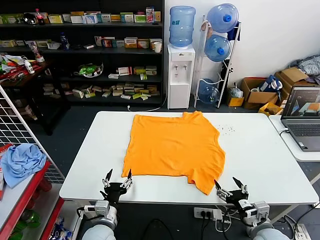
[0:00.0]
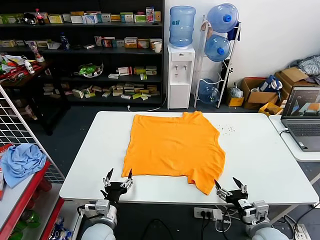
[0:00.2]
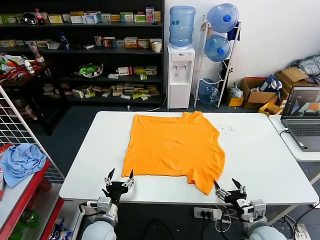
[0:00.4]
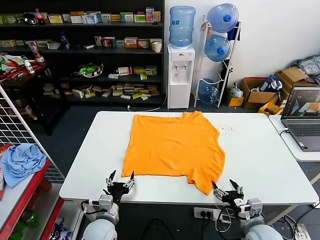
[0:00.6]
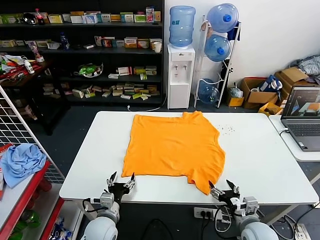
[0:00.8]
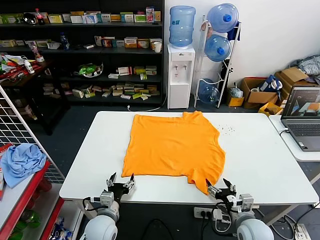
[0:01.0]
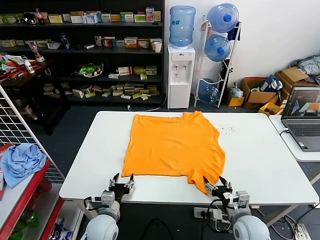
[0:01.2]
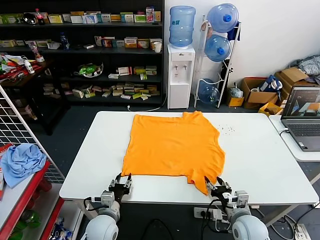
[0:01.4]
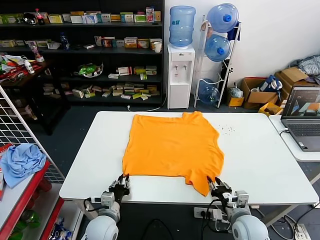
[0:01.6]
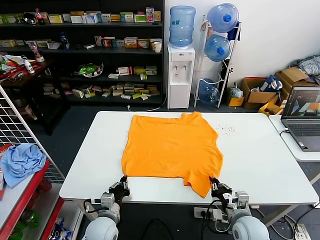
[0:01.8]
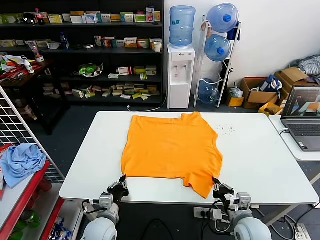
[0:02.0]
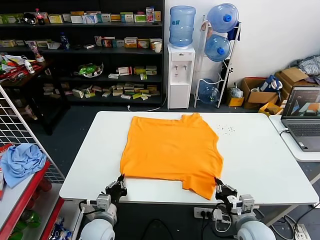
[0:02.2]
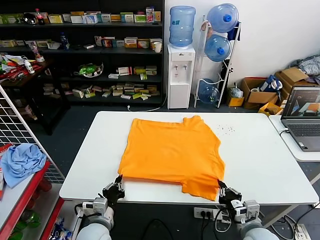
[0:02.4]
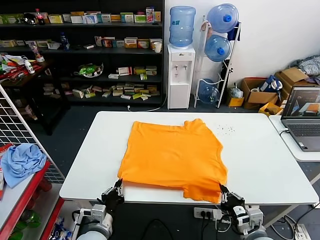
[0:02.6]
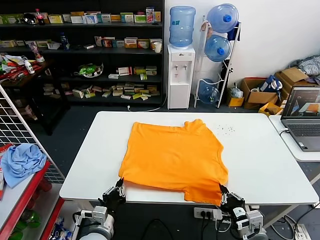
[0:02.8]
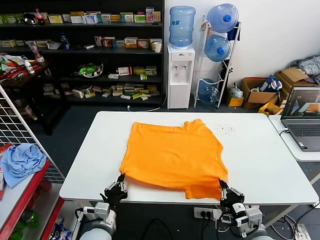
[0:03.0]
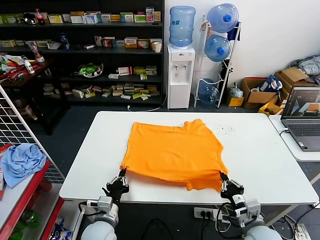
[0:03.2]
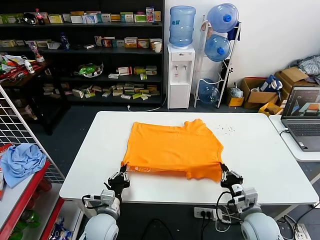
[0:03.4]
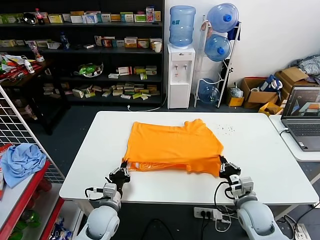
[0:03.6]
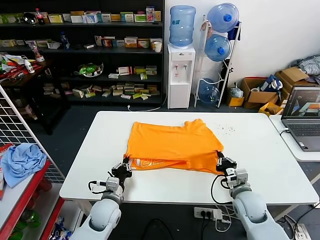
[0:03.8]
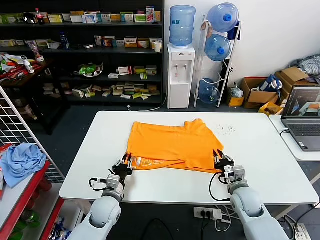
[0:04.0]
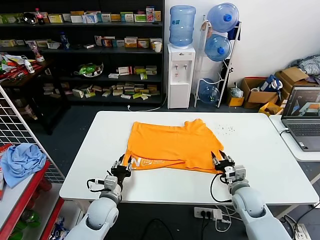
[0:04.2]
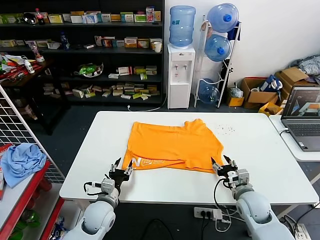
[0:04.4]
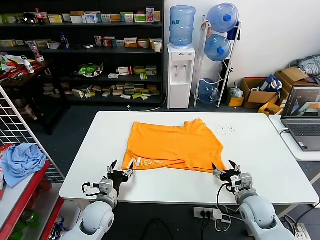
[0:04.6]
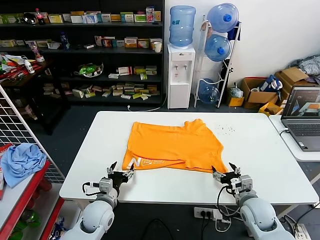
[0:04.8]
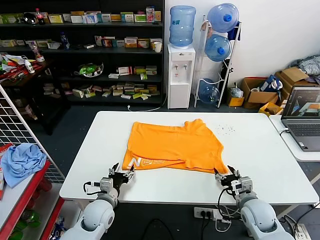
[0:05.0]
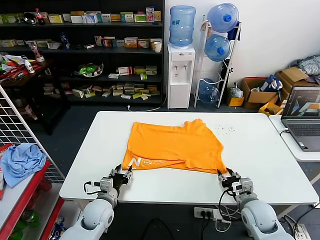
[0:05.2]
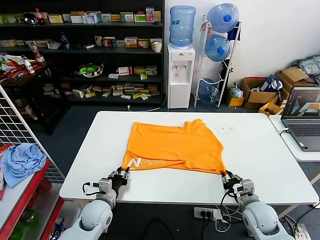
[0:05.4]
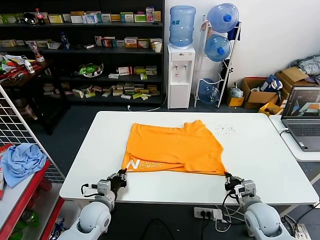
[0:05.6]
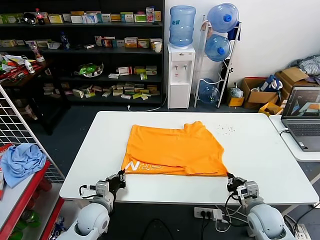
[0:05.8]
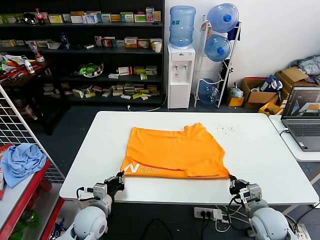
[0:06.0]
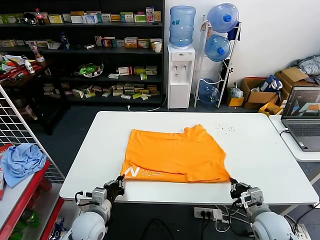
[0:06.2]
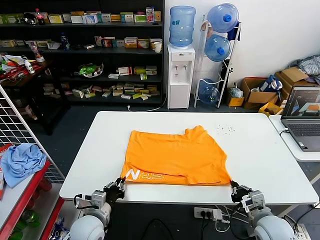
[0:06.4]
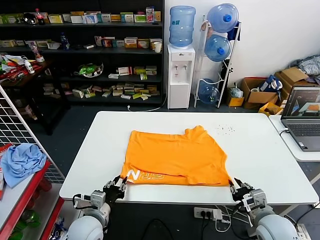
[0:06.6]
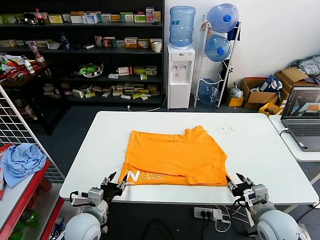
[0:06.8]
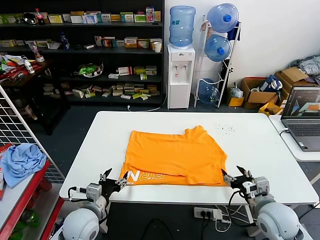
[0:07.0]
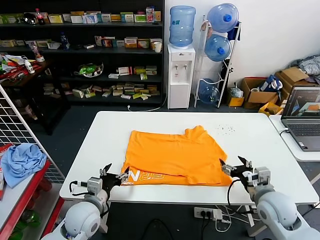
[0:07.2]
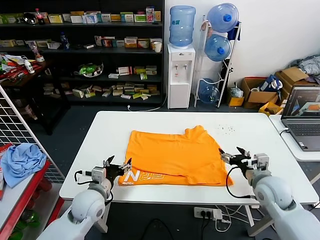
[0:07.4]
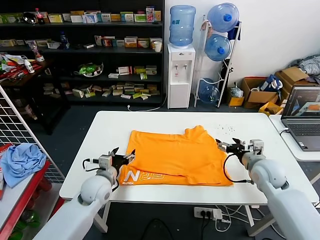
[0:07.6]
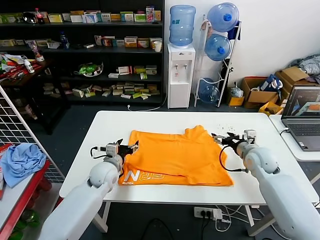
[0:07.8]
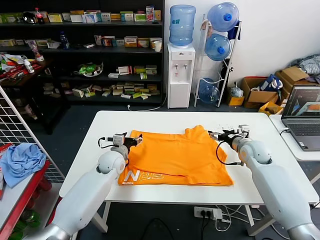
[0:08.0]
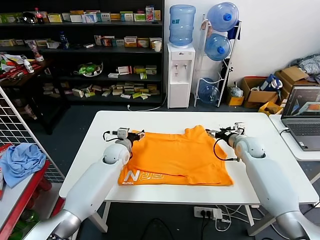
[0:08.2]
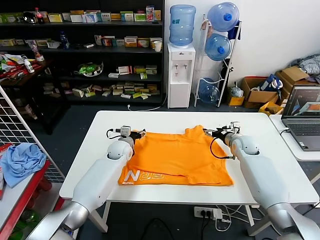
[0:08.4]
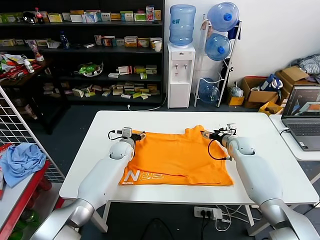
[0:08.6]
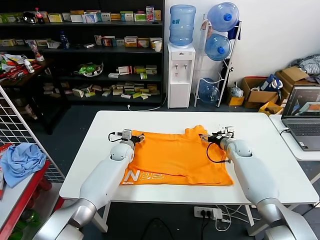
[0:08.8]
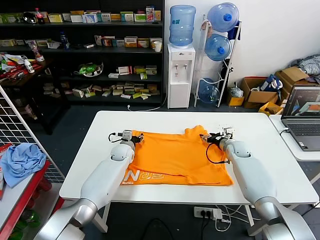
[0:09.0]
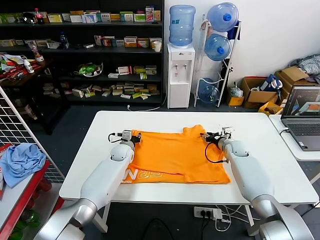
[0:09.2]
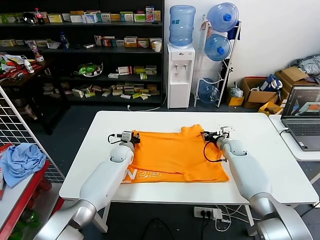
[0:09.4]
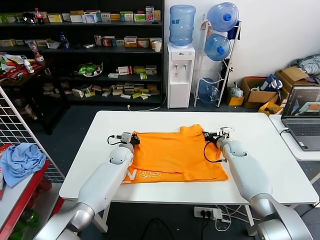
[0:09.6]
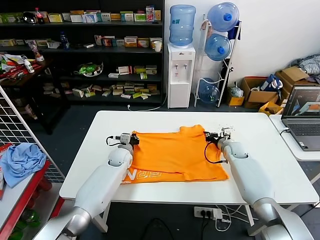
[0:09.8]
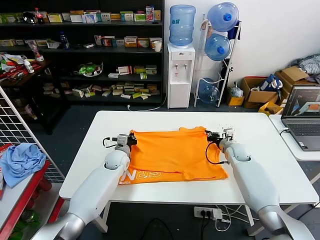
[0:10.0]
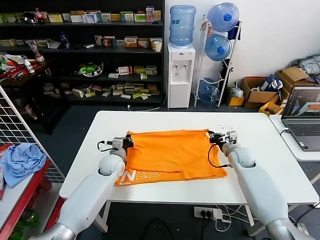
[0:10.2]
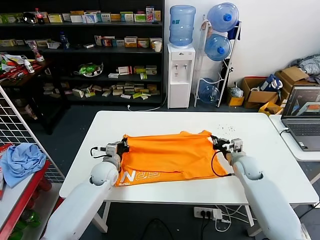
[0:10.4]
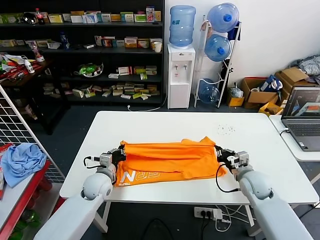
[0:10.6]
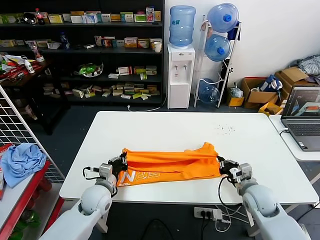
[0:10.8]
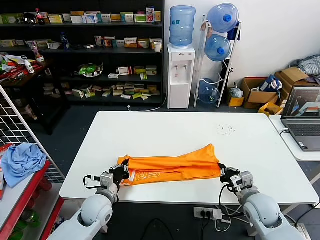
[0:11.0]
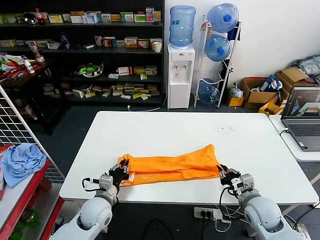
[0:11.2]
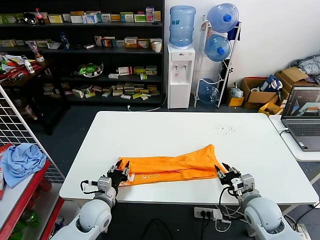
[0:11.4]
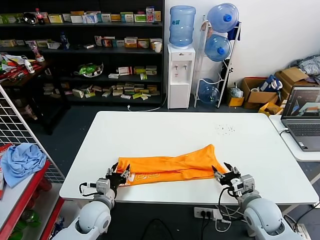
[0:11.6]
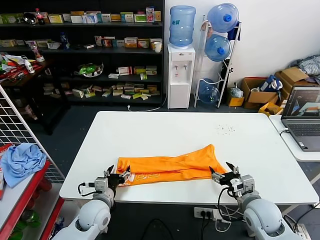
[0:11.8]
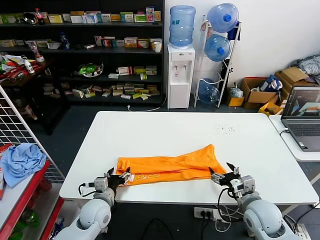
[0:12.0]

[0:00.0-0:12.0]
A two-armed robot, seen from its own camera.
Task of the whole recording: fold and organize the clothes.
Step, 0:00.0 to 0:02.0: use both grippers simultaneously to clamp the lower edge of the clothing fabric.
Step, 0:02.2 to 0:04.2: use both grippers to drag the lower edge of the fabric forward and fold it over the upper edge.
Step, 0:04.4 to 0:06.6: Drag the clothes downward with both gripper.
Step, 0:06.8 to 0:09.4: use both grippers simultaneously to clamp the upper edge of the clothing fabric.
Step, 0:09.8 to 0:11.4: use both grippers to drag the upper edge of the fabric backward and fold it over the lower edge.
0:01.6 to 0:03.0: The left gripper changes place by some 5 cm. Meanwhile the right gripper shifts approximately 5 cm backward.
0:03.0 to 0:04.4: Both grippers move forward, roughly 10 cm. The right gripper opens its fingers. Meanwhile the left gripper opens up.
0:04.4 to 0:06.0: The left gripper closes its fingers. The right gripper is displaced backward by about 5 cm, and closes its fingers.
0:06.0 to 0:07.6: The right gripper goes roughly 15 cm forward and upward, and opens its fingers. Meanwhile the left gripper travels forward and upward by about 10 cm, and opens up.
0:07.6 to 0:09.0: The left gripper moves forward, approximately 20 cm, while the right gripper goes about 20 cm forward and downward.
0:09.0 to 0:10.4: Both grippers travel together backward, roughly 10 cm. The right gripper closes its fingers; the left gripper closes its fingers.
0:10.4 to 0:12.0: Both grippers move backward, approximately 15 cm. The right gripper opens up; the left gripper opens its fingers.

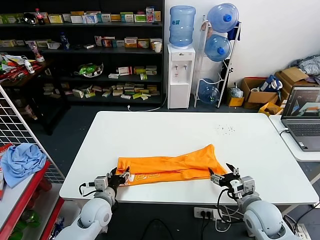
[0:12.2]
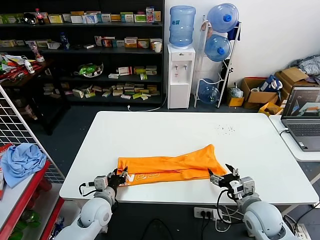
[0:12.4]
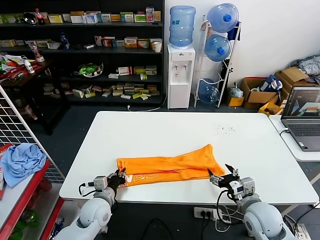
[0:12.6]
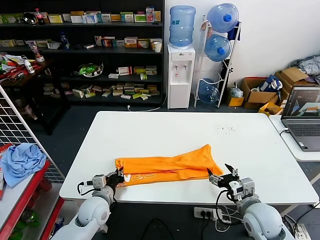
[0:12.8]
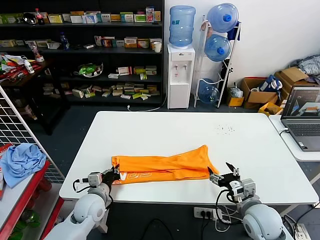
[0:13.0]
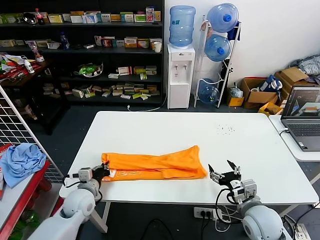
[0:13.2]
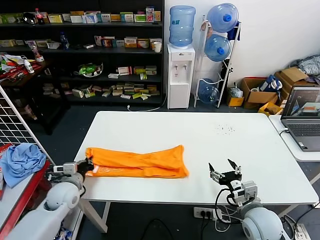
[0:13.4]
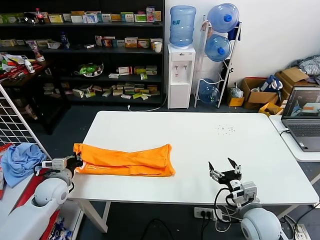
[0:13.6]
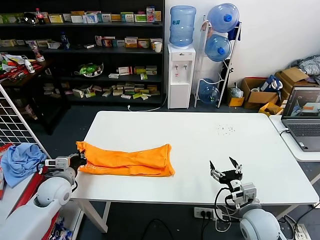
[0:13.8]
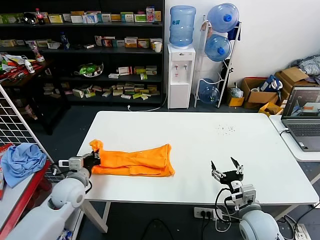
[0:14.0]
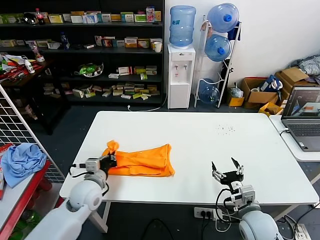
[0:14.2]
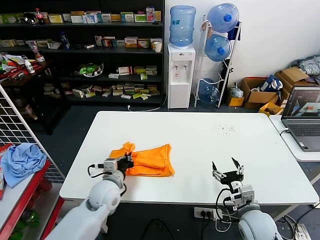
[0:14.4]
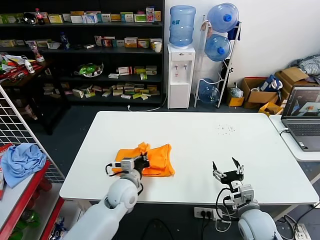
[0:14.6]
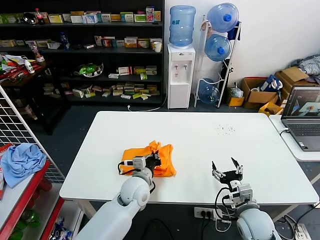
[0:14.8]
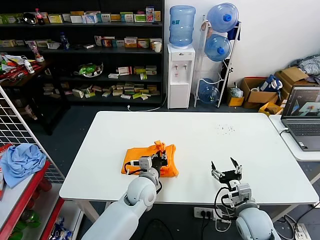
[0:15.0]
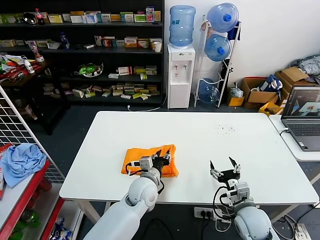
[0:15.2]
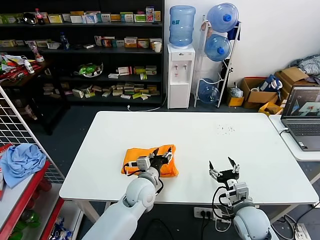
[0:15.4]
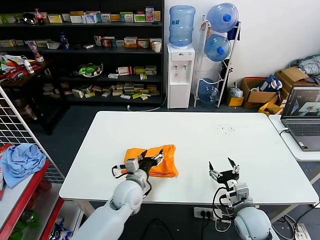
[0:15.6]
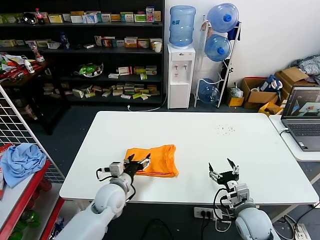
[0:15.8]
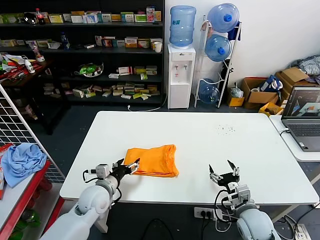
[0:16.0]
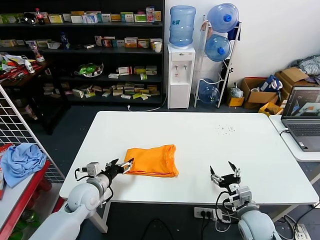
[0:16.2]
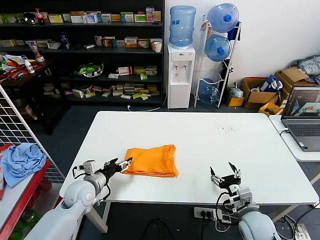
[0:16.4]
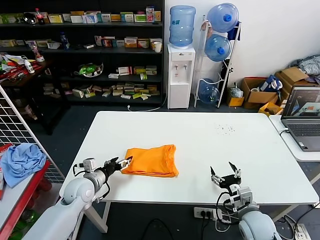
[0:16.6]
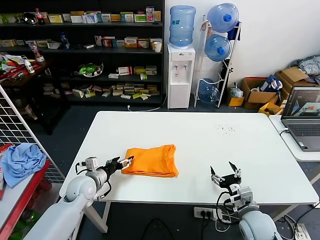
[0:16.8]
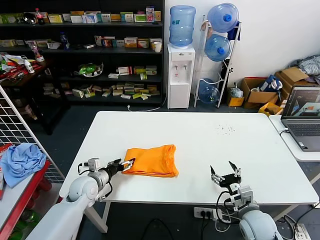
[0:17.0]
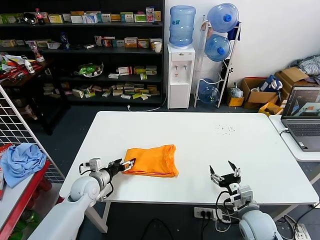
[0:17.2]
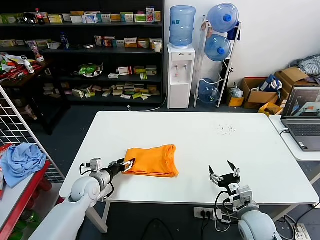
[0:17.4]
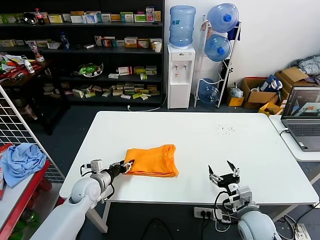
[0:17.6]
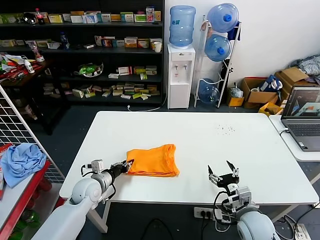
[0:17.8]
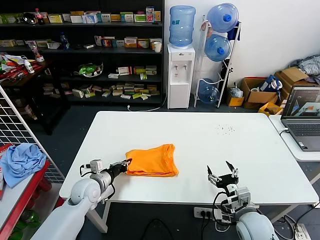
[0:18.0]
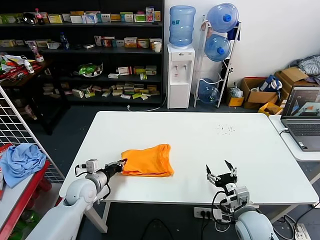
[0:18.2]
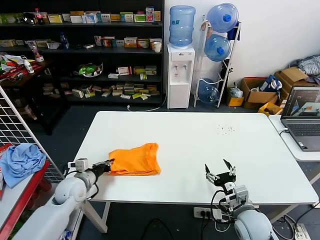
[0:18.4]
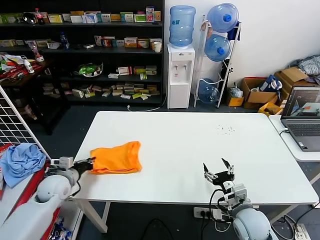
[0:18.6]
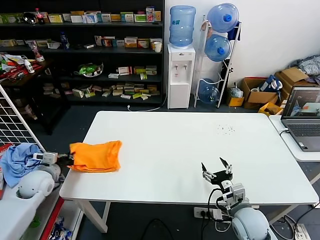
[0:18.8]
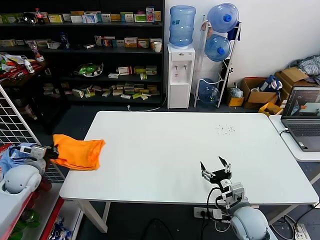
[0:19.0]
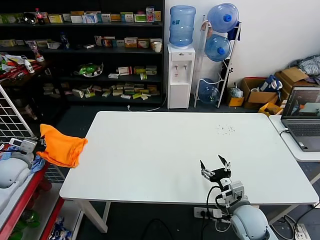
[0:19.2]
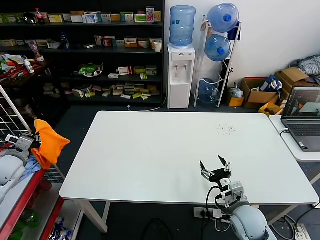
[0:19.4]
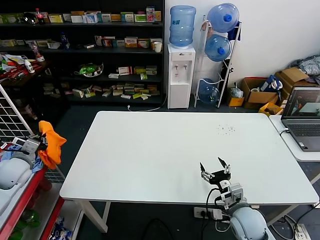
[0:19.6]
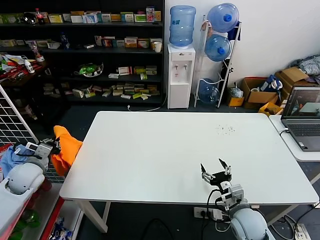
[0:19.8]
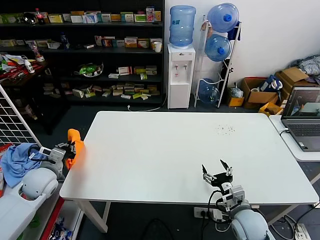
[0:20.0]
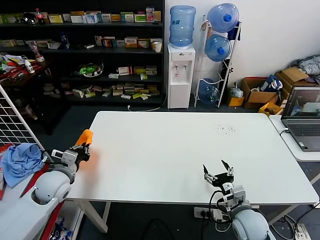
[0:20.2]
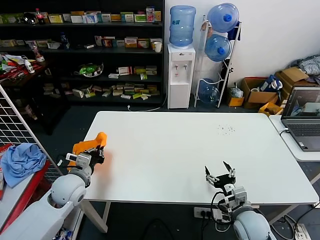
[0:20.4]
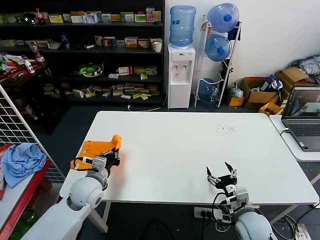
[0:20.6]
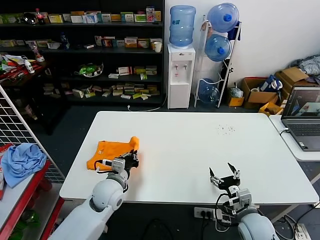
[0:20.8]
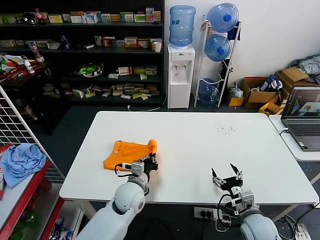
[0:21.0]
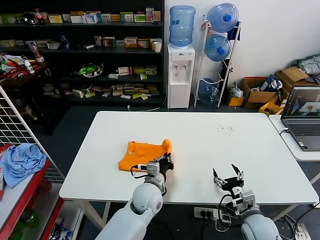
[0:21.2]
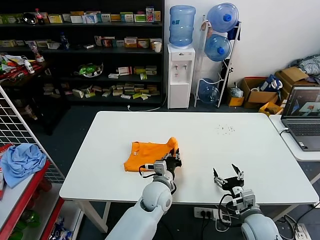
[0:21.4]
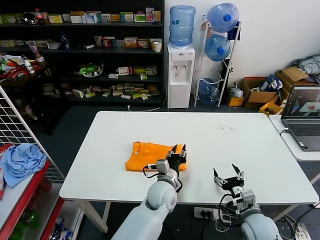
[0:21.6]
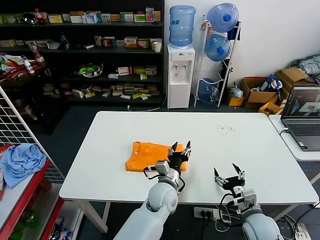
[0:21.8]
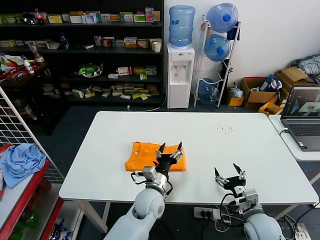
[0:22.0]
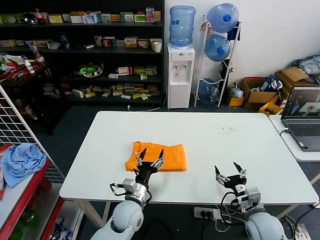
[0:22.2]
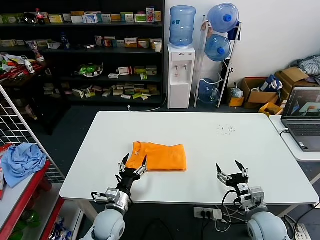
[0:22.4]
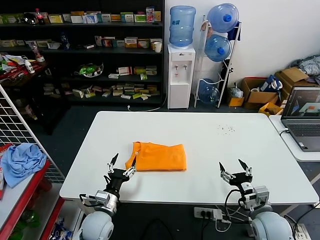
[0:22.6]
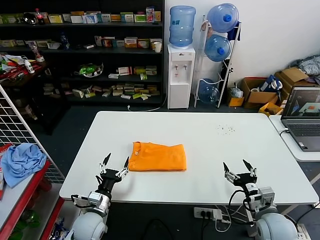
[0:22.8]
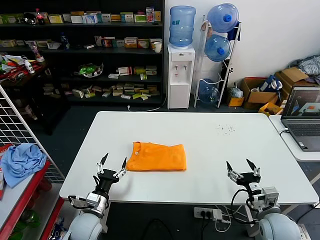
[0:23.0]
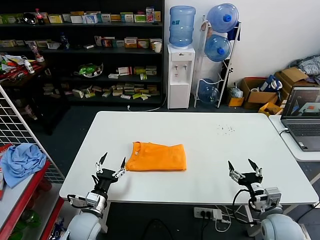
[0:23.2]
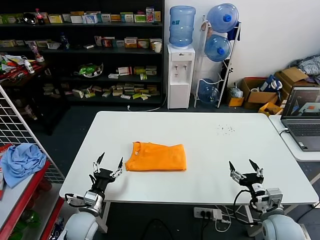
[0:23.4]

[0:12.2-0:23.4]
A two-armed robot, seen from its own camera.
Task of the whole recording: fold and organize the clothes.
Step, 0:12.2 to 0:12.8: use the left gripper to clamp the left edge of the fabric.
Step, 0:13.0 to 0:15.2: use the left gripper to drag the left edge of the fabric to the left and folds it over the right edge.
Step, 0:15.4 to 0:21.6: Flip the folded clothes over with left gripper.
0:12.2 to 0:13.8: The left gripper goes about 15 cm to the left and upward, and closes its fingers.
0:13.8 to 0:15.4: The left gripper moves to the right, approximately 30 cm, and opens.
0:15.4 to 0:17.0: The left gripper travels to the left by about 20 cm.
0:17.0 to 0:18.6: The left gripper heads to the left, covering some 5 cm, and closes up.
0:18.6 to 0:20.2: The left gripper is displaced upward by about 5 cm, and reaches approximately 15 cm to the left, then returns.
0:20.2 to 0:21.8: The left gripper is displaced to the right by roughly 35 cm, and opens.
0:21.8 to 0:23.4: The right gripper moves about 5 cm. Meanwhile the left gripper is displaced to the left by roughly 25 cm.
